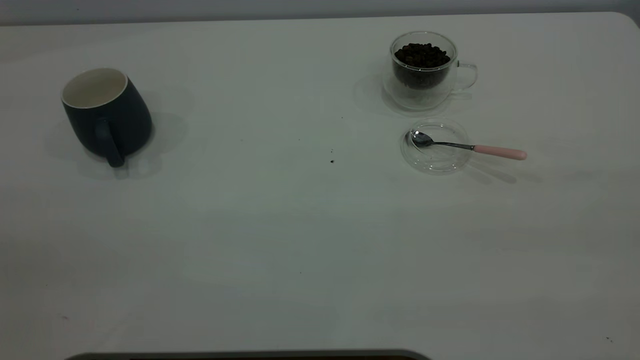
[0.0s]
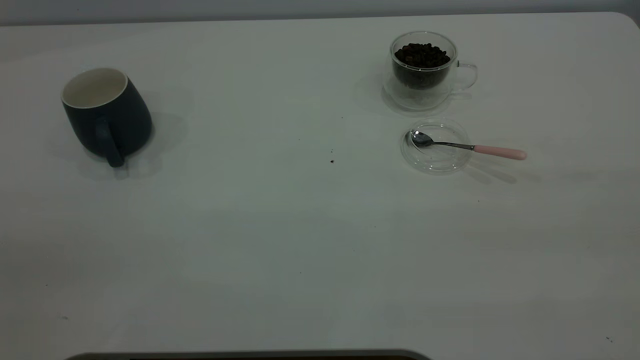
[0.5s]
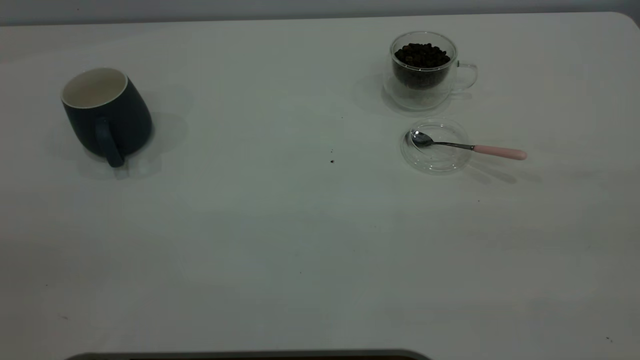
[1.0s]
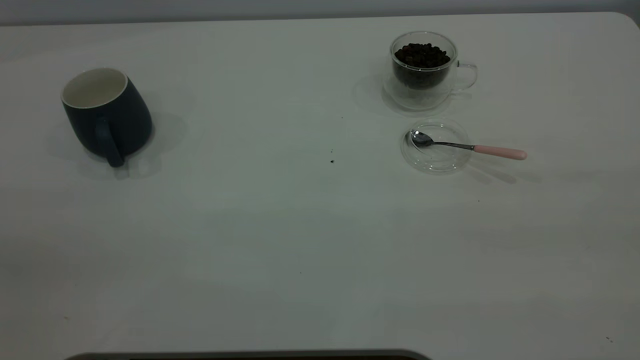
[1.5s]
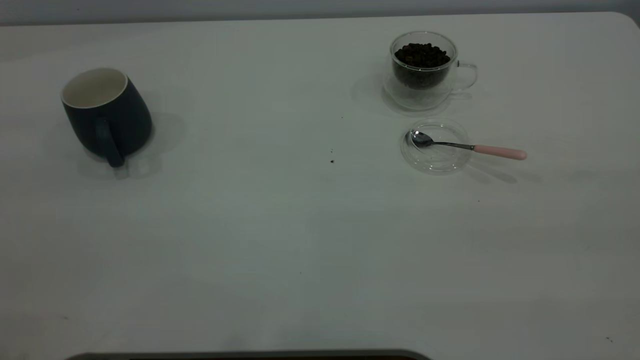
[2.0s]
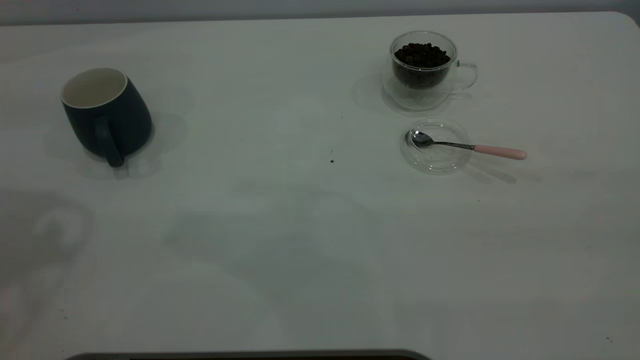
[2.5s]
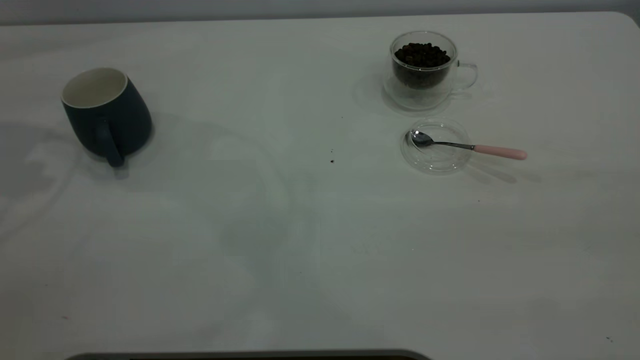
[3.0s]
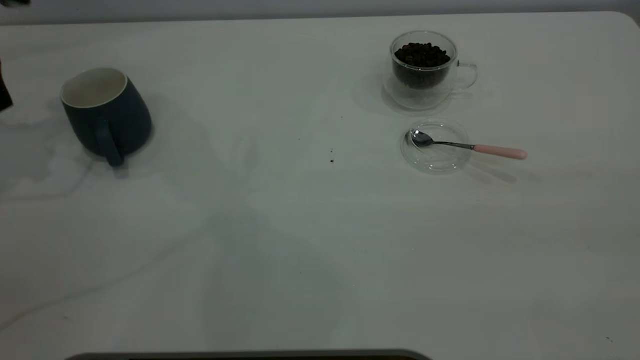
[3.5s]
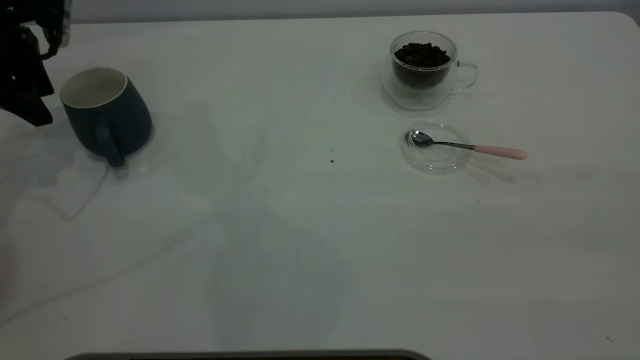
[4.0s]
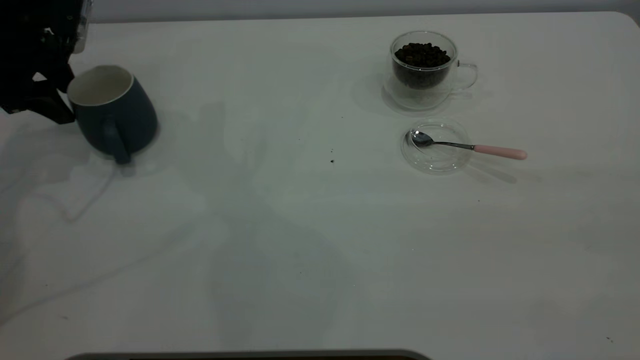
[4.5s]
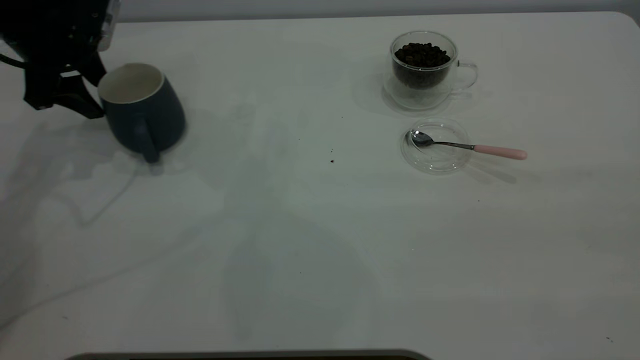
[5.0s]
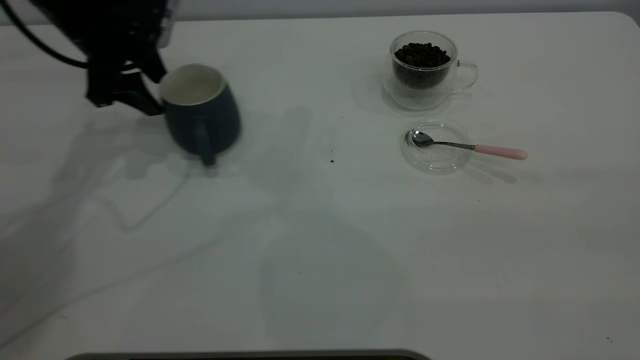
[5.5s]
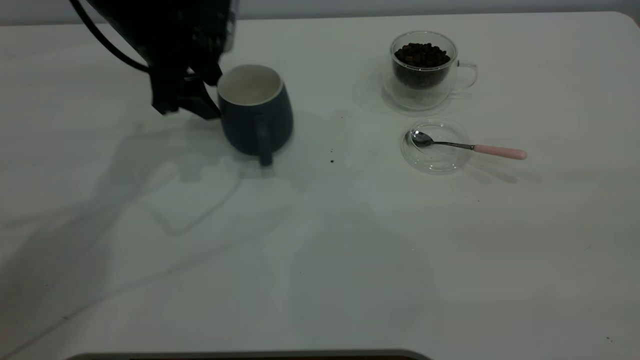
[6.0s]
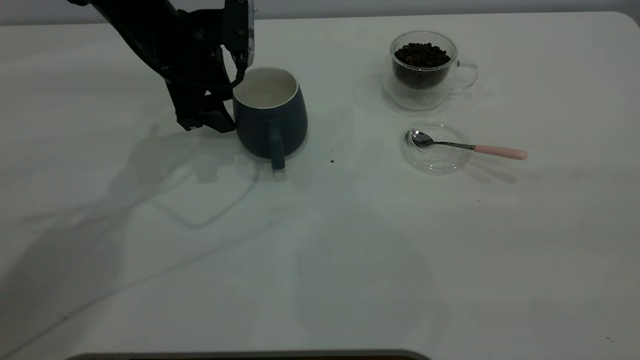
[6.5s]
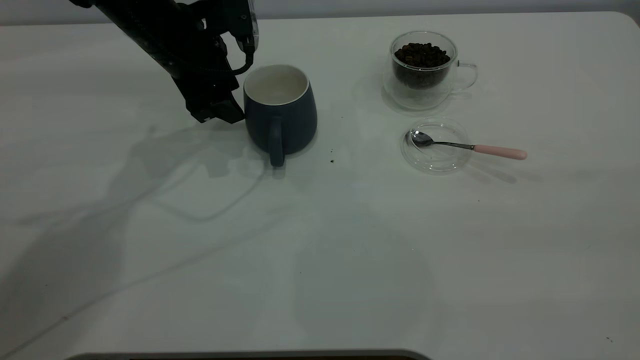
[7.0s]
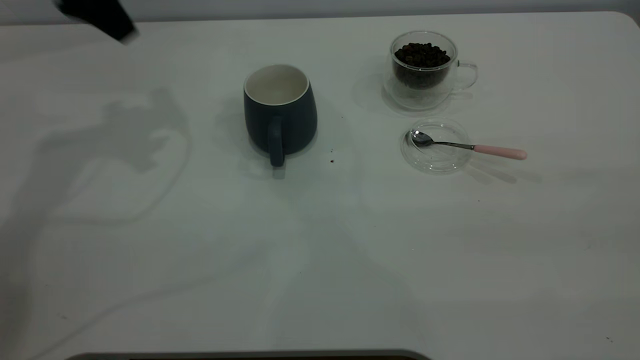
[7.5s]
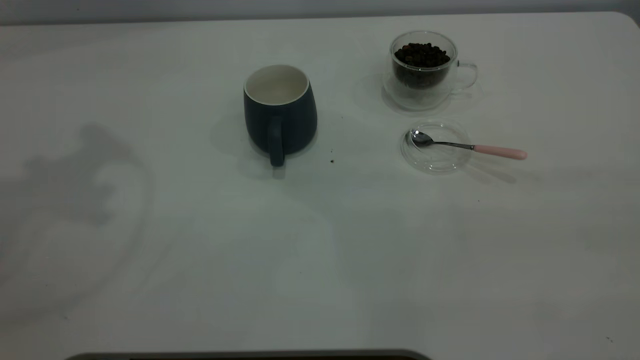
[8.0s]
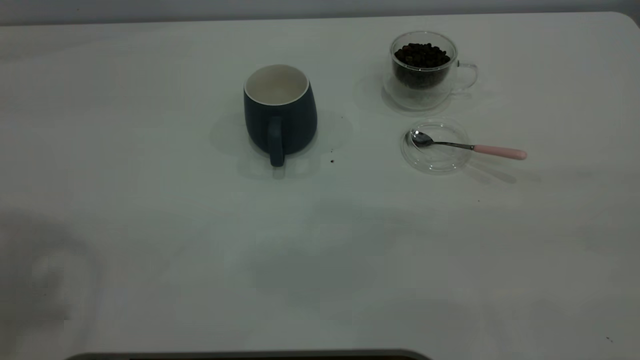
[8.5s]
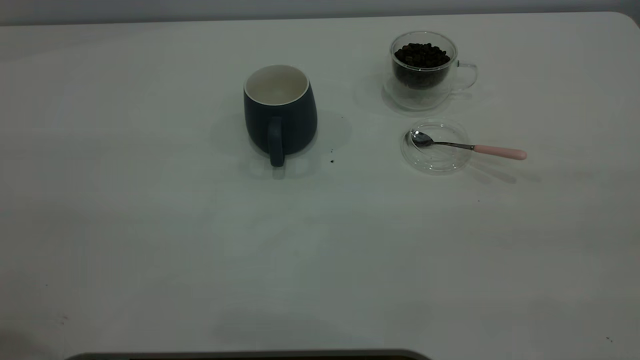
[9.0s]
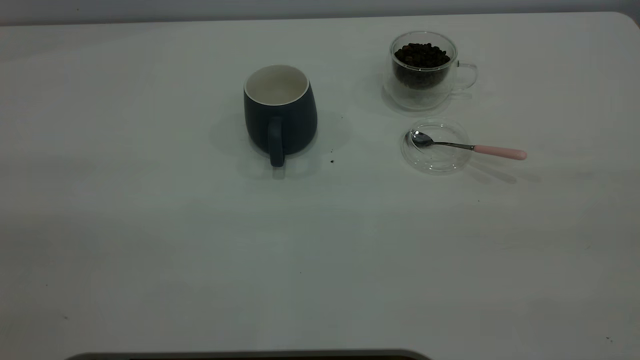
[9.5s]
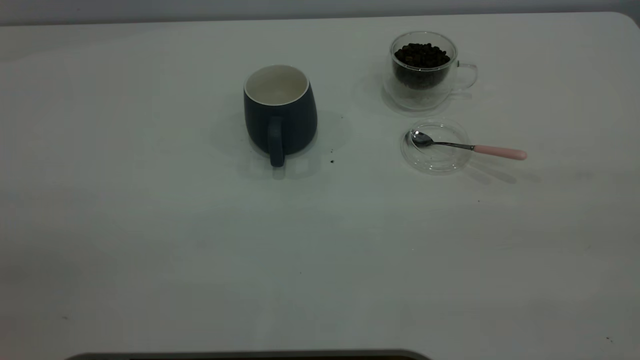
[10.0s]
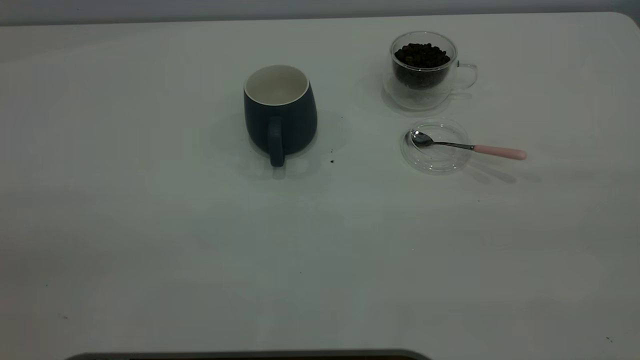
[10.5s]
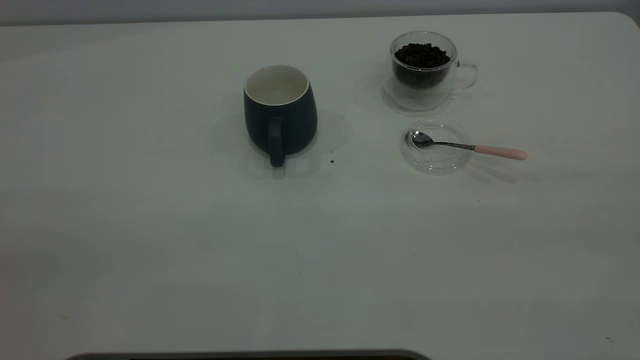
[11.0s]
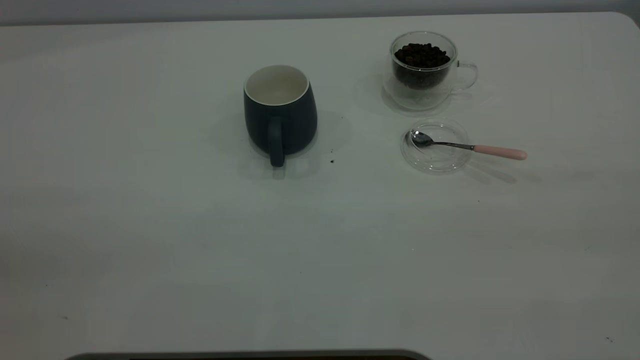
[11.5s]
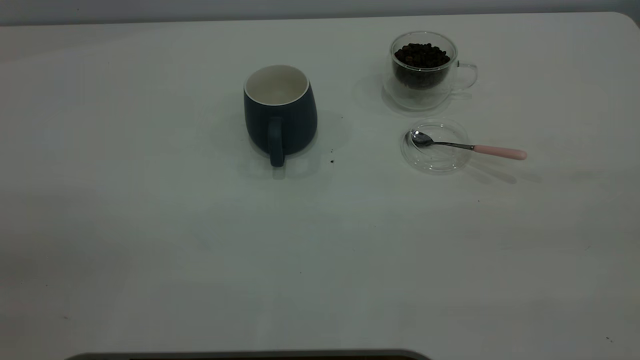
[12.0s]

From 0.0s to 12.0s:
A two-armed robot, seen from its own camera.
Task of the whole recording: the left gripper place the grey cup in the center of the table, the right gripper take the pink spoon from the cup lid and scoop out the coffee beans from the coffee cup and put them into the grey cup, the right gripper put the spoon back into the cup lid.
Step, from 0.0s to 7.0s: Move the cup to the center of view.
From 2.0s to 4.0s: The left gripper heads forward and downward, covering approximately 40 cm.
From 4.0s to 6.0s: The left gripper is displaced to the right by approximately 20 cm.
From 6.0s to 8.0s: The left gripper travels upward by roughly 30 cm.
From 10.0s to 12.0s: Both grippers stay put.

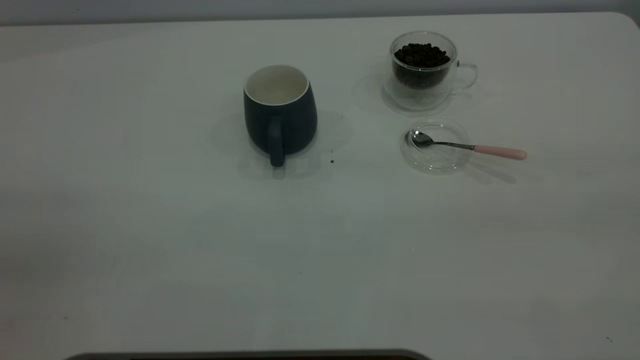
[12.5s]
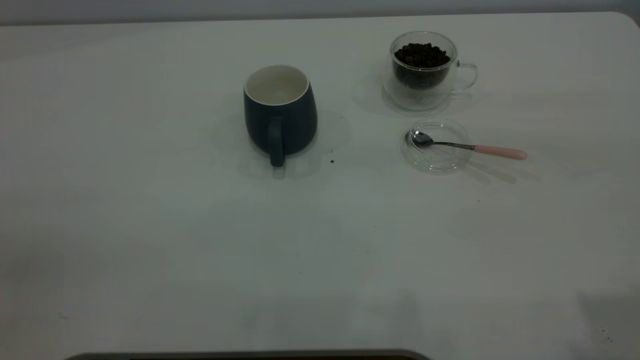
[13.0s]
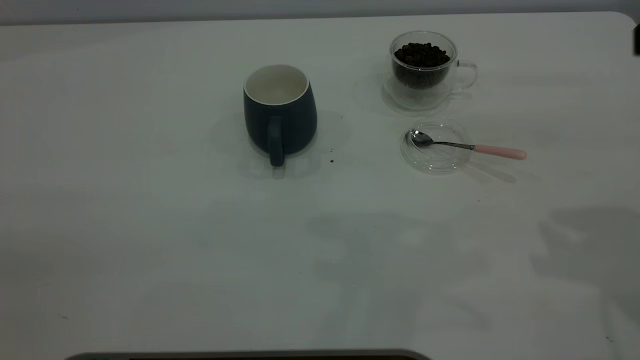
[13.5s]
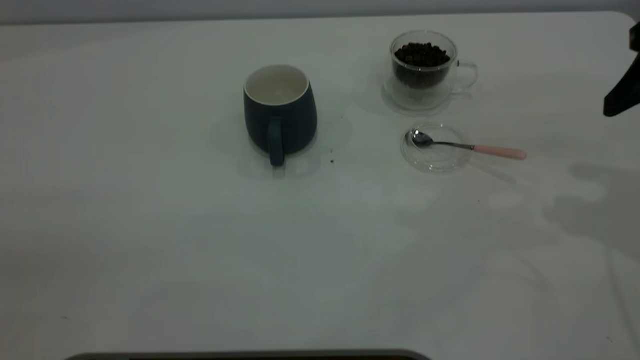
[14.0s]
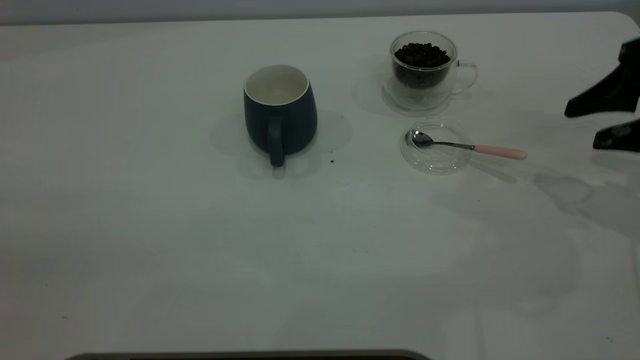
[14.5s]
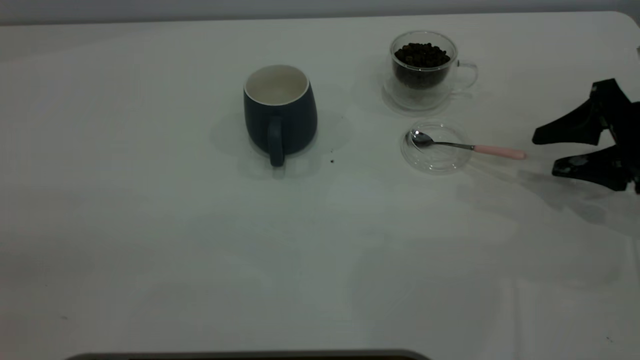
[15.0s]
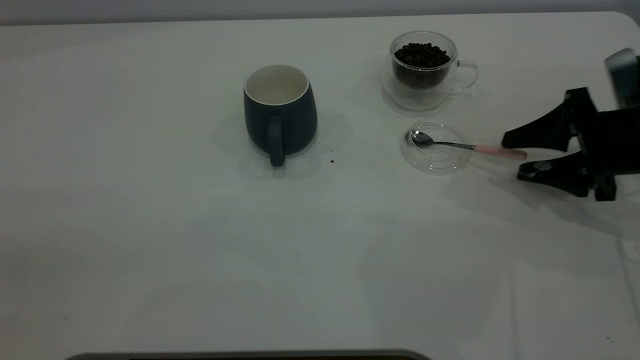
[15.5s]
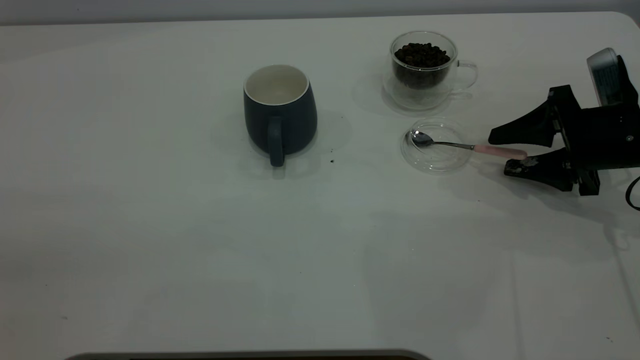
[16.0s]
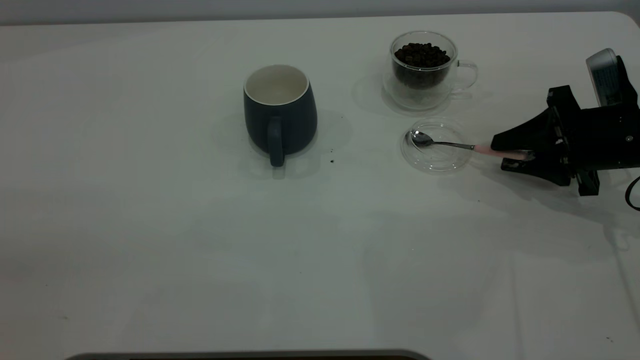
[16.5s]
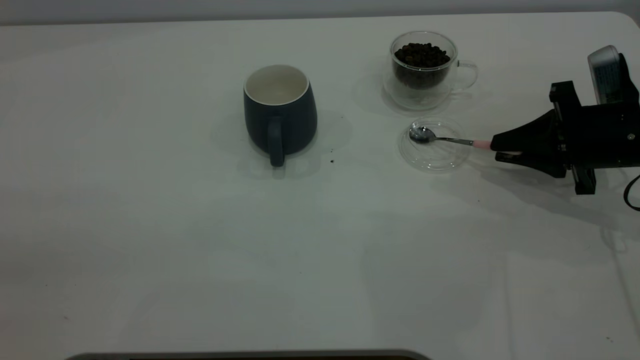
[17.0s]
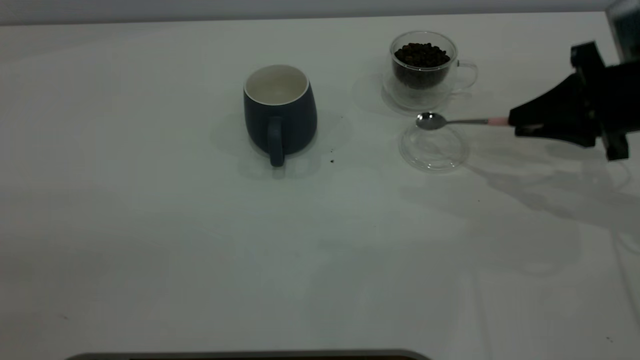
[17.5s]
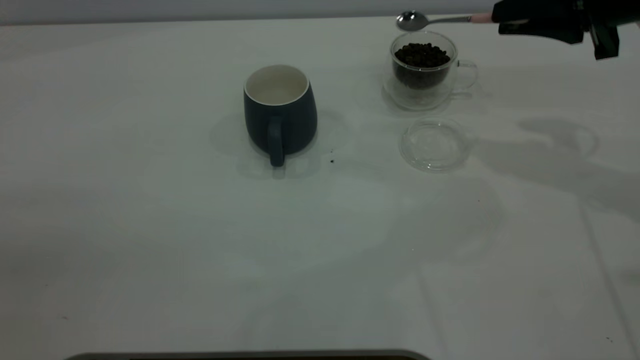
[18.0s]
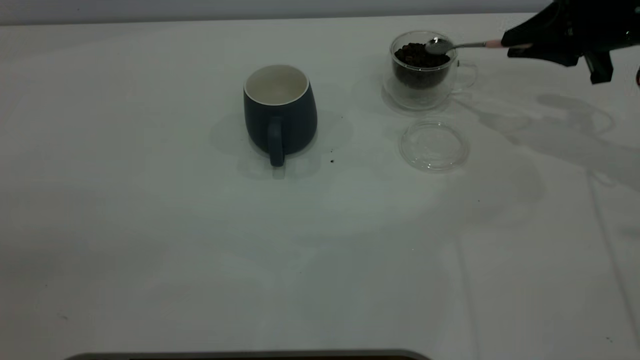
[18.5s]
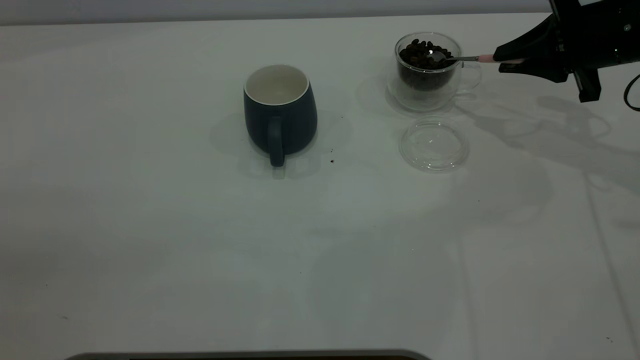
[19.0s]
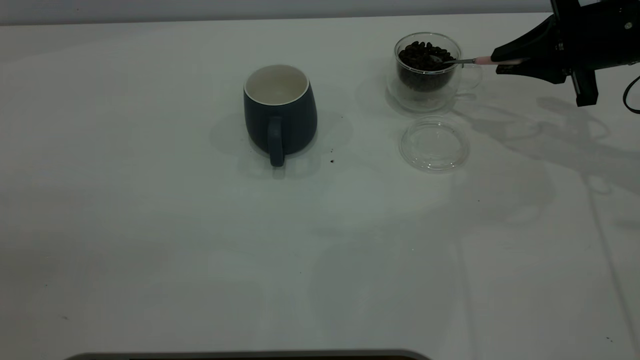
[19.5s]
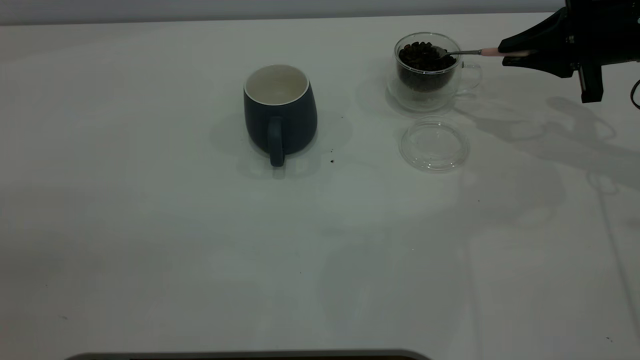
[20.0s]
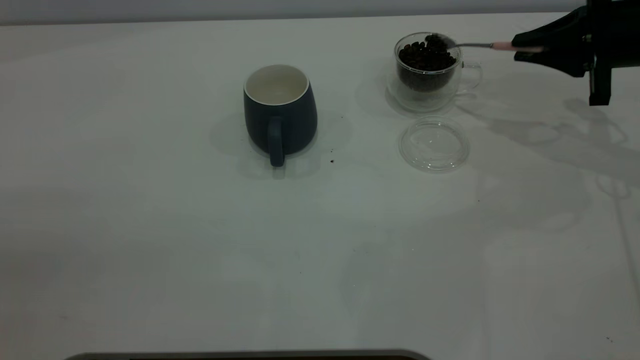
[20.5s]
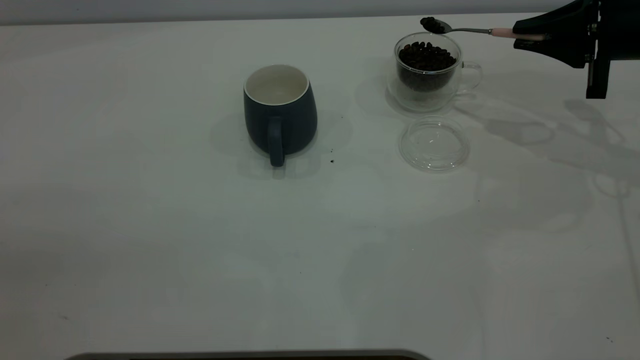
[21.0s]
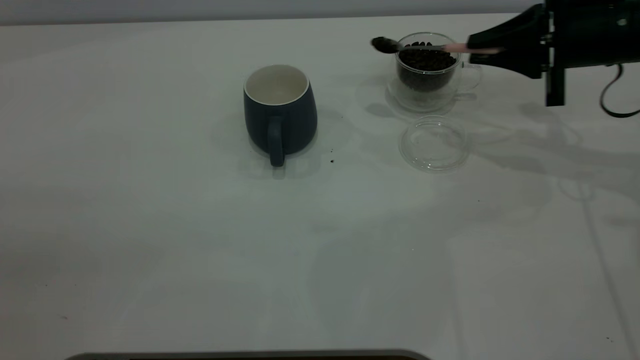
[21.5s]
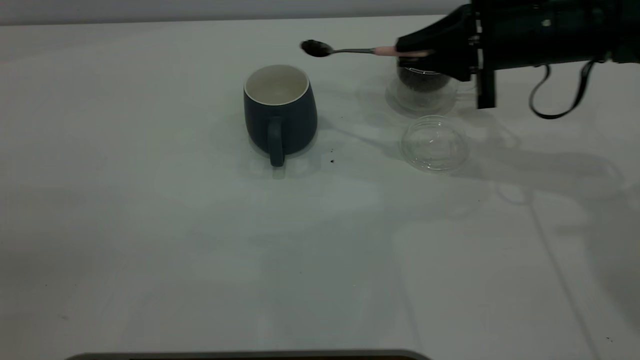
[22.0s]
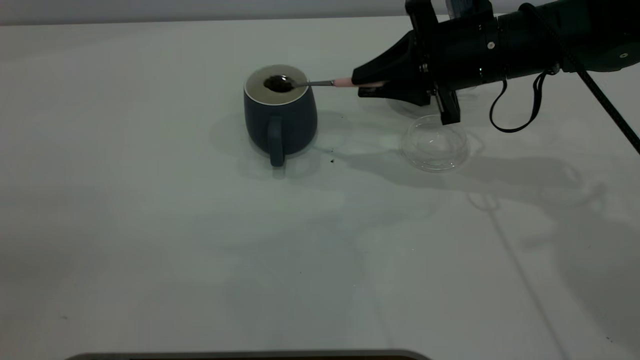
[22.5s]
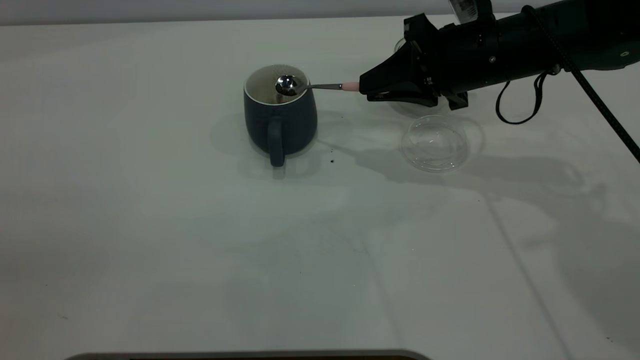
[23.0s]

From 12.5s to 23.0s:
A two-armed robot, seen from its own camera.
Task of the whole recording: the left gripper place the grey cup in the center of the table, the right gripper take the pink spoon from the cup lid and scoop out the coffee beans from the coffee cup and put them into the grey cup, the right gripper put the spoon back into the cup lid.
Step, from 12.5s to 17.5s: Pick up the spoon.
From 12.5s to 14.5s: The right gripper moves forward and downward, some 35 cm.
From 14.5s to 16.5s: The right gripper is displaced downward by approximately 10 cm, and closes.
From 16.5s to 19.0s: The right gripper is displaced upward and forward by roughly 10 cm, and closes.
From 19.0s to 21.0s: The grippers move only a little.
From 21.0s to 23.0s: The right gripper moves to the left, some 15 cm.
